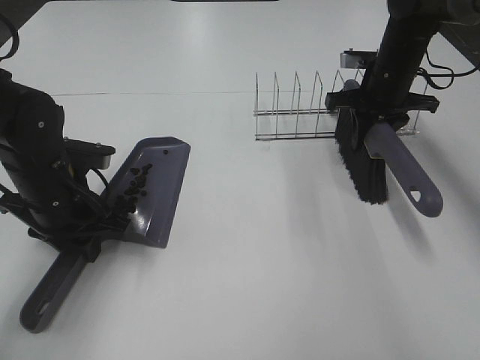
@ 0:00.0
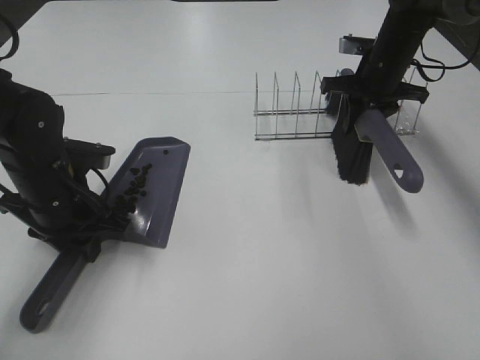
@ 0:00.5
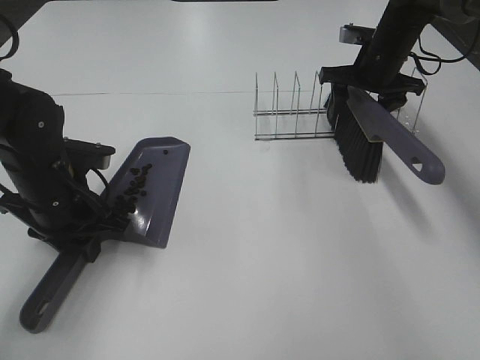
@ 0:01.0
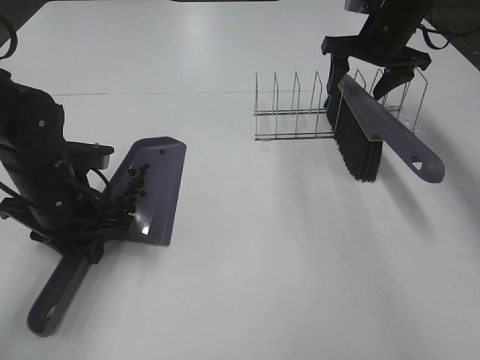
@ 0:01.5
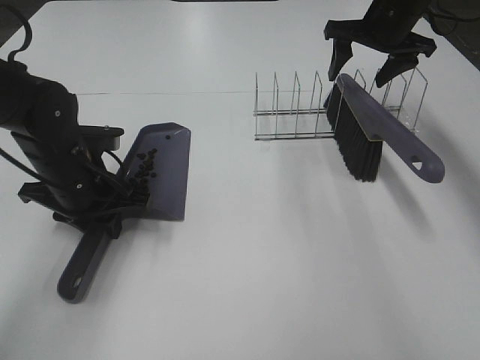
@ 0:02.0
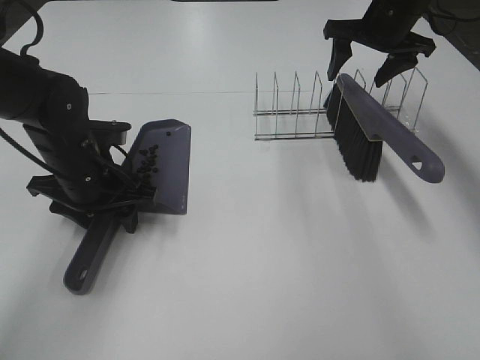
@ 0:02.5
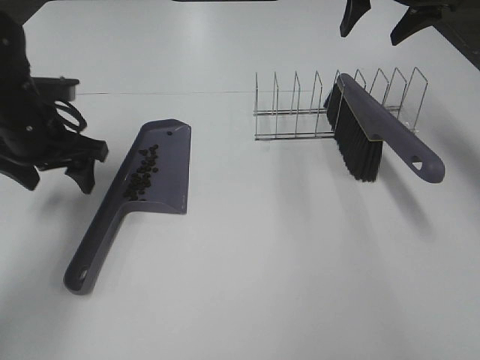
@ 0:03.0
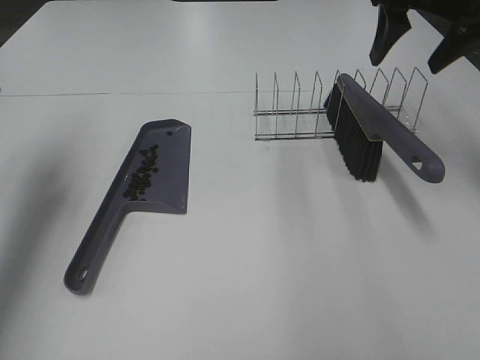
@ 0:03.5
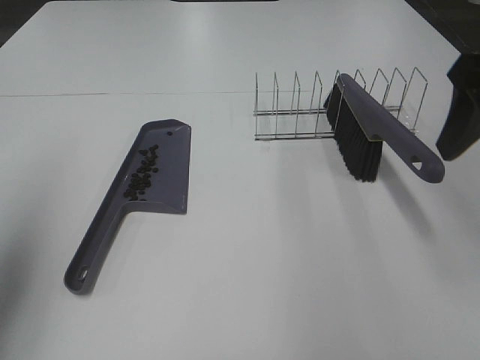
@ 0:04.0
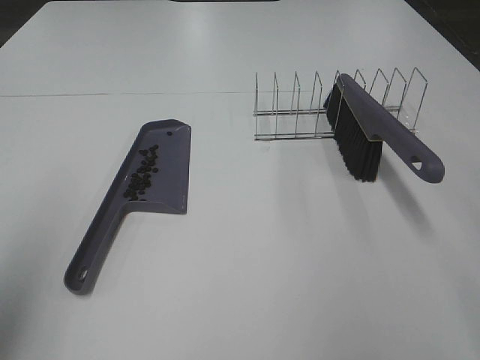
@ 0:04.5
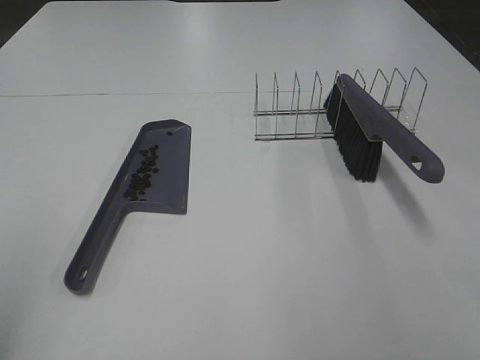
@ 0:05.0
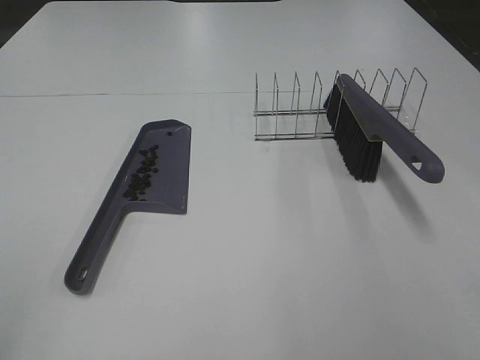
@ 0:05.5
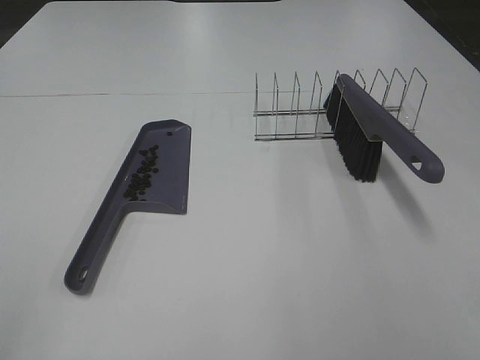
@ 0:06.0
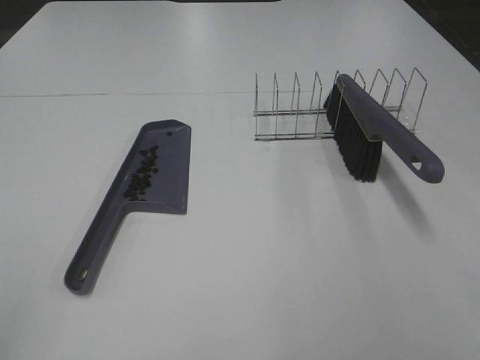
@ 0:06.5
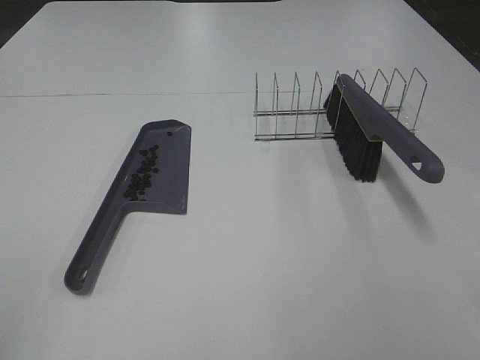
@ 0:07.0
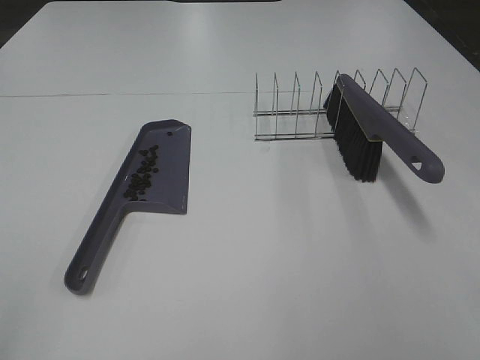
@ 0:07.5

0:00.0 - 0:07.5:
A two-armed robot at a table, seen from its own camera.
Task of the whole recording: Sweep Coffee Bean.
Step, 0:01.5 - 0:02.5: Left hand:place the dustpan on the table.
0:00.0 - 0:02.0: The right gripper shifts about 5 cm upward, and opens.
0:02.0 - 0:04.0: The right gripper goes about 25 cm backward; the left gripper goes about 30 cm upward, to the left and backward, and opens.
0:04.0 - 0:05.5: The two grippers go some 20 cm backward.
